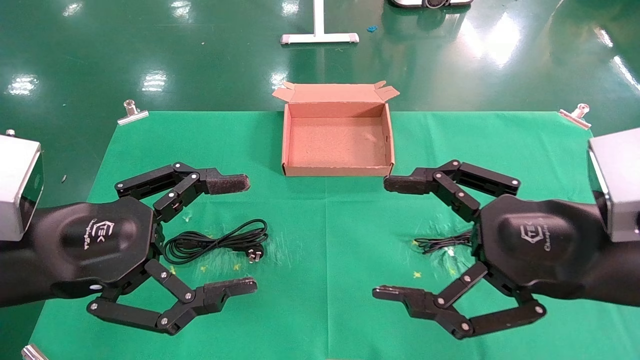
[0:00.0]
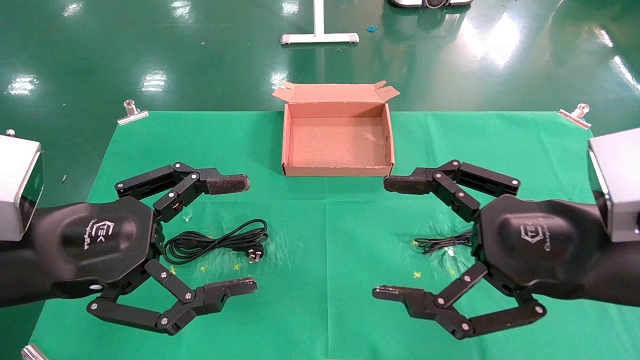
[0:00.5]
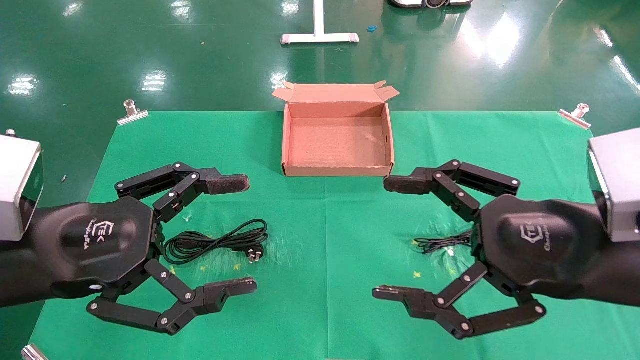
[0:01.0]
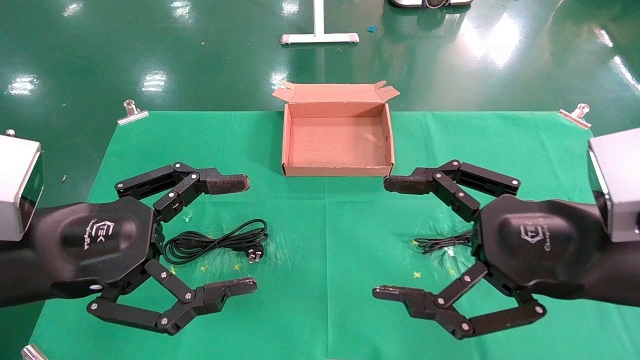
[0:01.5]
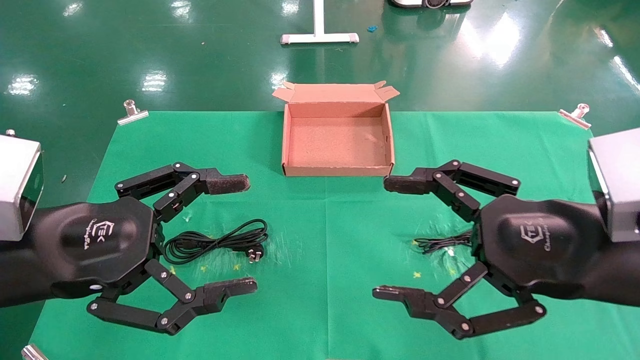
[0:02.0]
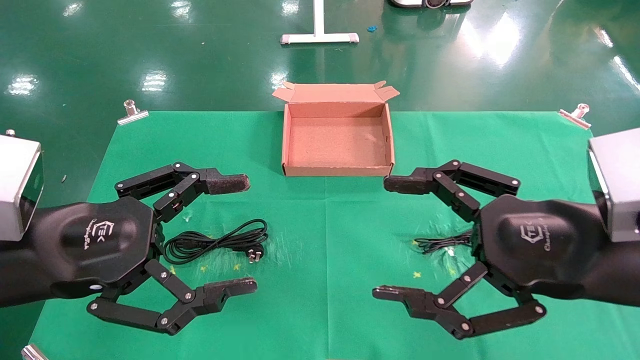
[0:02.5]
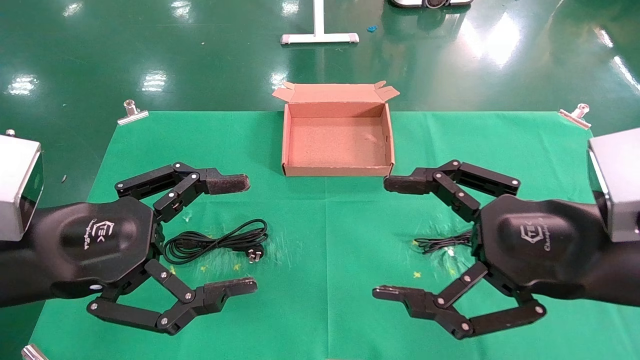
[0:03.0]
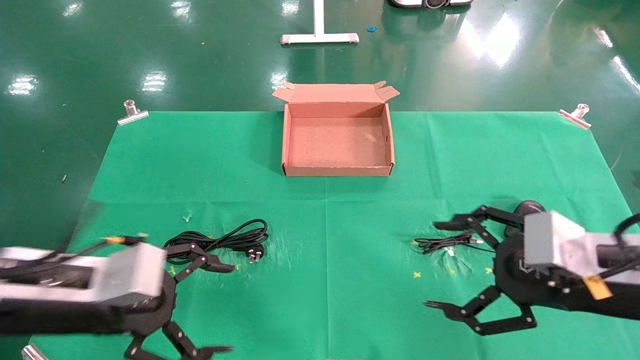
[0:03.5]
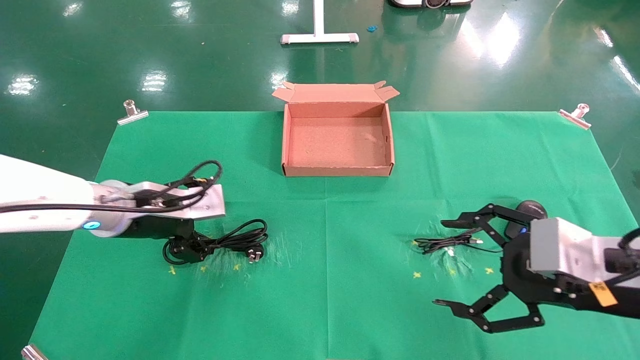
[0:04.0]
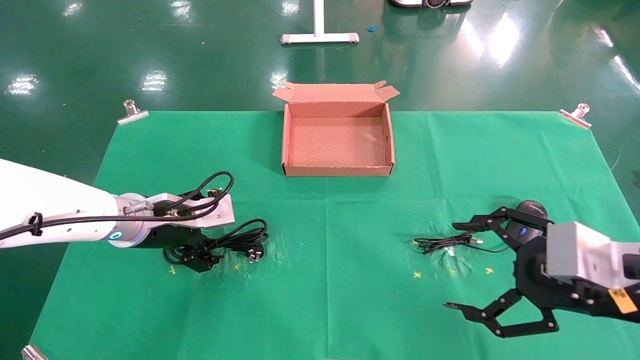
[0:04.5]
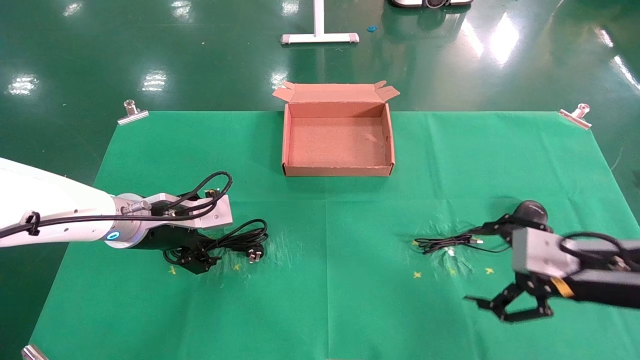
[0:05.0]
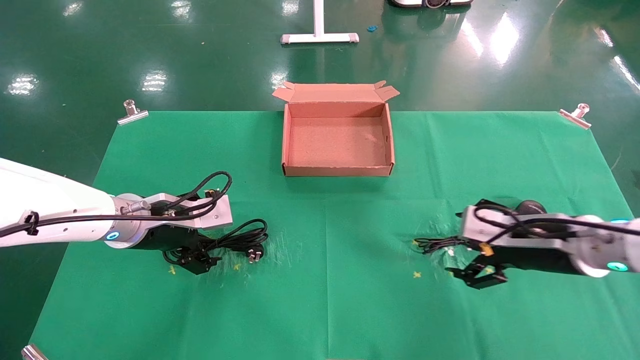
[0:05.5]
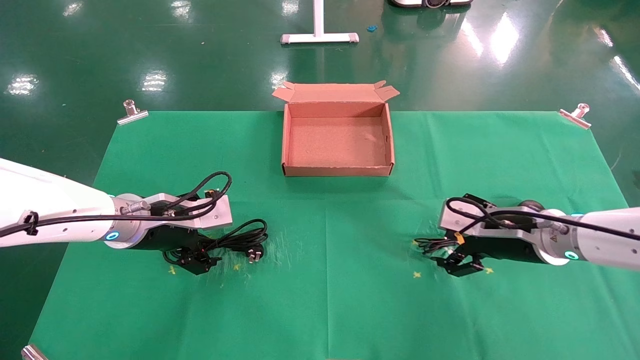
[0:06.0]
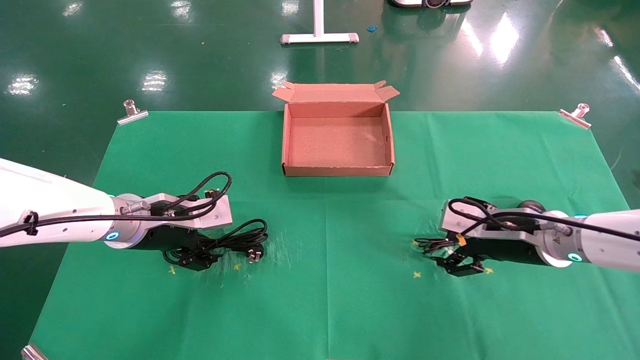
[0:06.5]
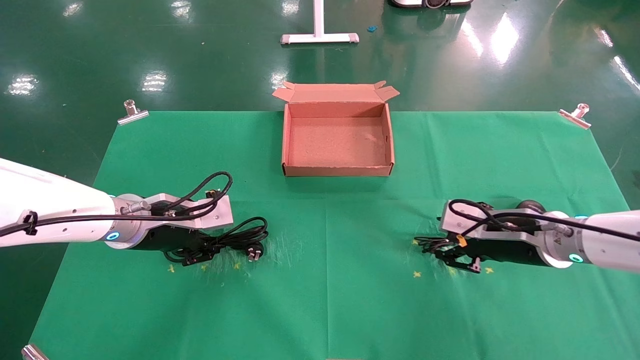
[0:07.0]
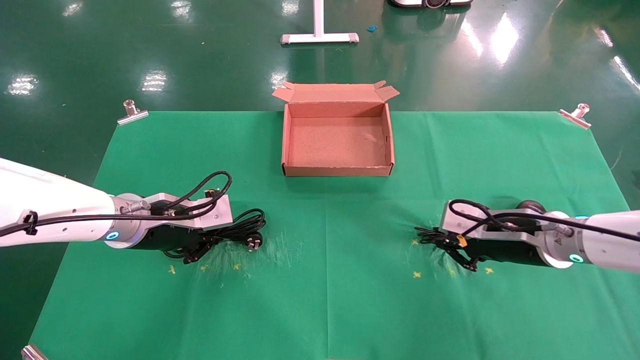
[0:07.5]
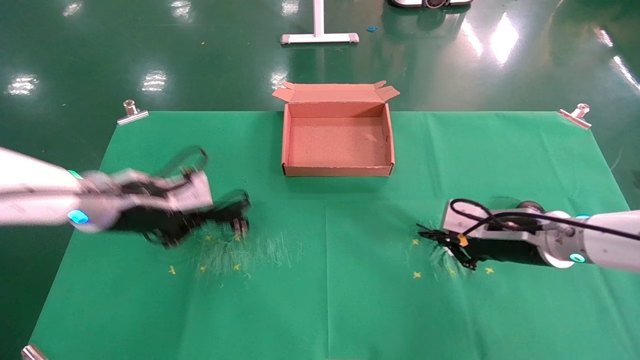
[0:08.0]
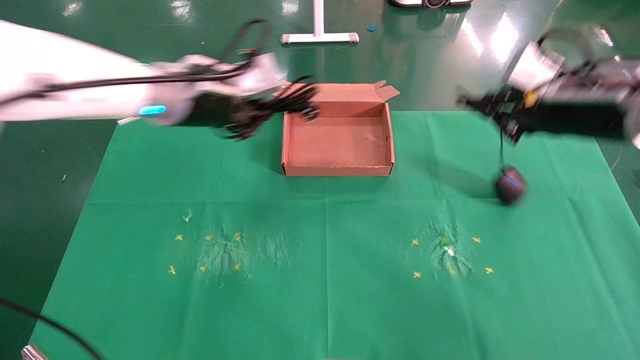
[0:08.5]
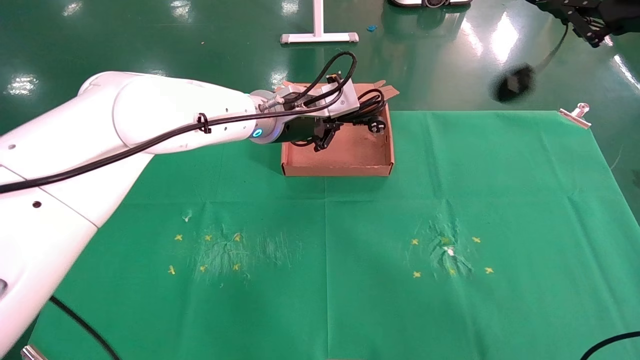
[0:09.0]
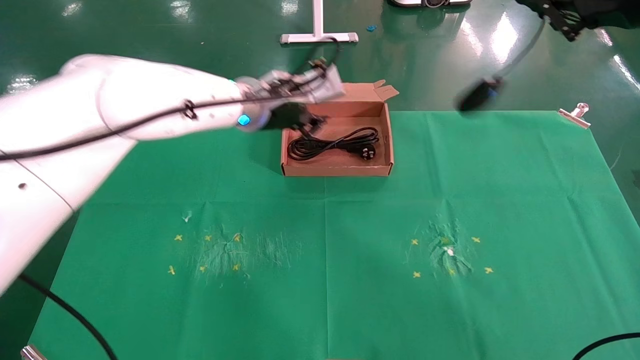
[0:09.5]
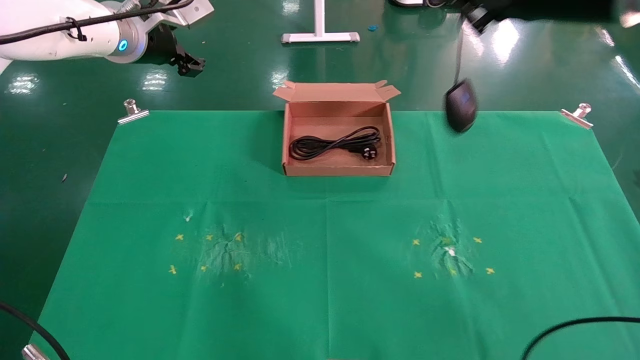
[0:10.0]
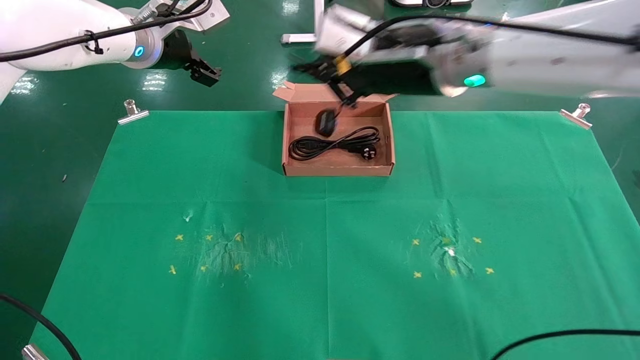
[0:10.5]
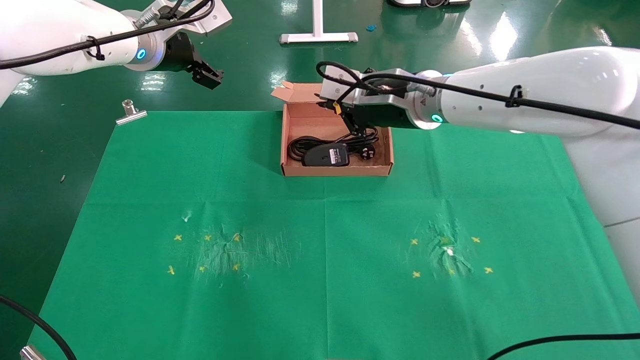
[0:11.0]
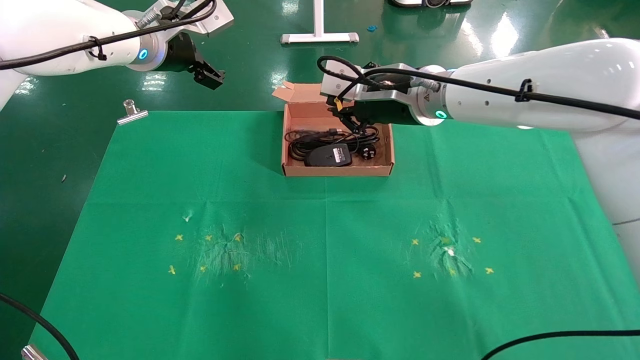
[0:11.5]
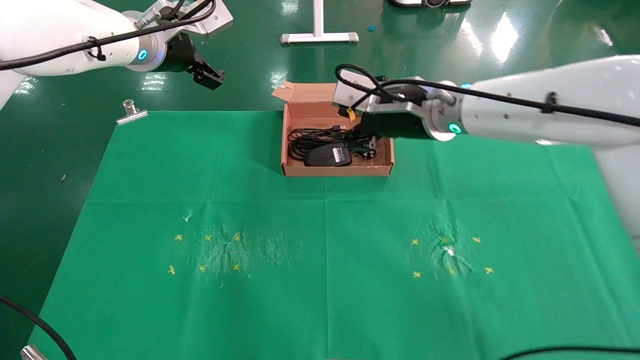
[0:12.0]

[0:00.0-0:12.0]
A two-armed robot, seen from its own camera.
Task of the whole recording: grasp data cable left put into box grasp mouse right put into box.
Step, 0:03.0 to 0:07.5: Simultaneously pick up the mouse and power cord from the accessory packaging area.
Step, 0:08.0 to 0:11.5: Place the mouse and power cord into the box.
0:00.0 to 0:02.0: Neither gripper changes place.
0:02.0 to 0:04.0: The right gripper moves to the right, approximately 5 cm. The left gripper is displaced forward by some 15 cm.
0:04.0 to 0:06.0: The right gripper heads forward, covering some 15 cm.
0:06.0 to 0:08.0: The right gripper closes up. Meanwhile the left gripper travels upward by approximately 5 cm, and closes up.
0:08.0 to 0:10.0: The left gripper travels upward and forward by about 20 cm, moves approximately 20 cm to the right and comes back, and opens its fingers. Meanwhile the right gripper heads upward, covering approximately 25 cm.
0:10.0 to 0:12.0: The right gripper travels downward, to the left and forward by roughly 20 cm, and opens. Meanwhile the left gripper opens its fingers.

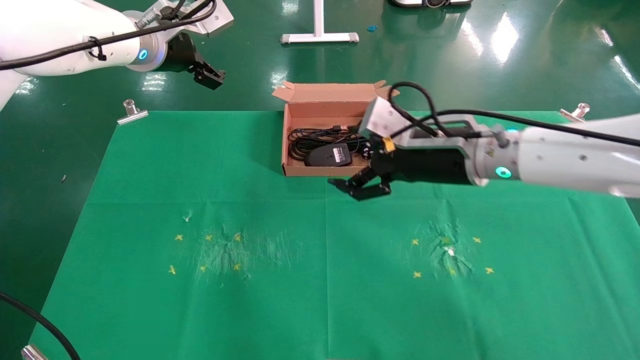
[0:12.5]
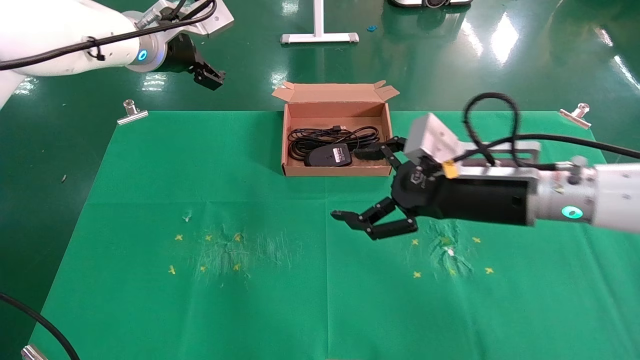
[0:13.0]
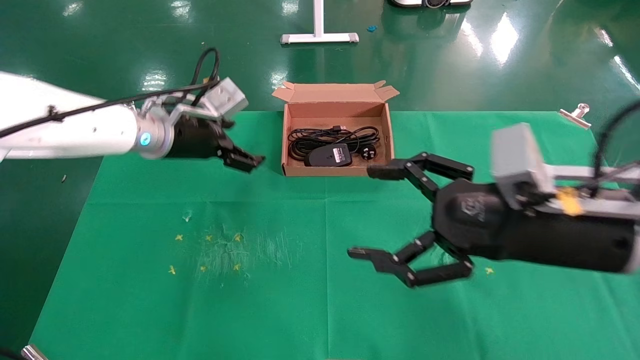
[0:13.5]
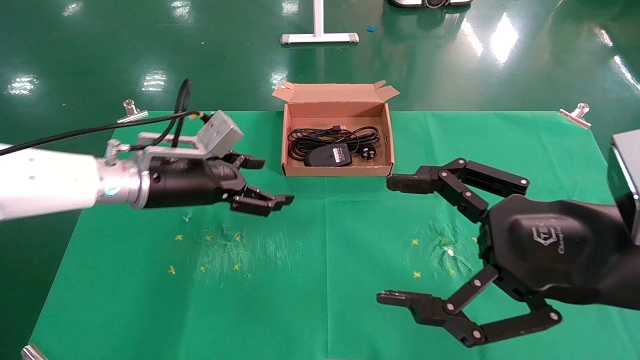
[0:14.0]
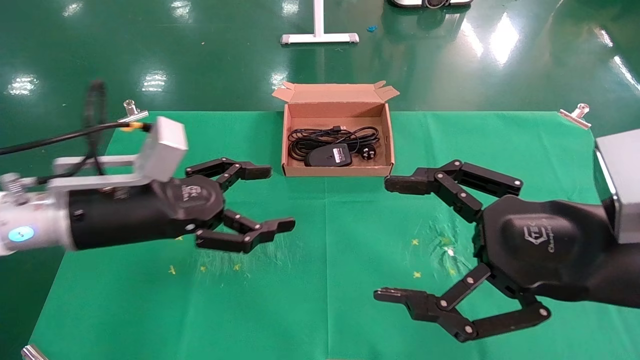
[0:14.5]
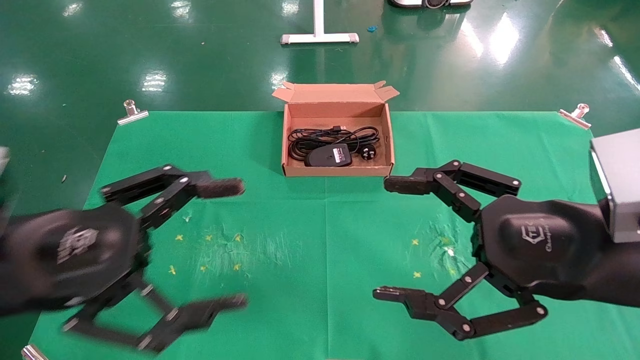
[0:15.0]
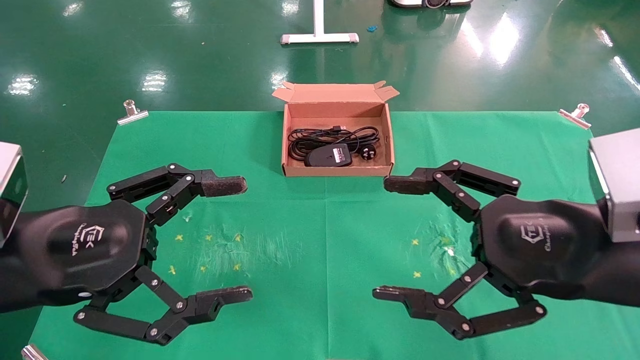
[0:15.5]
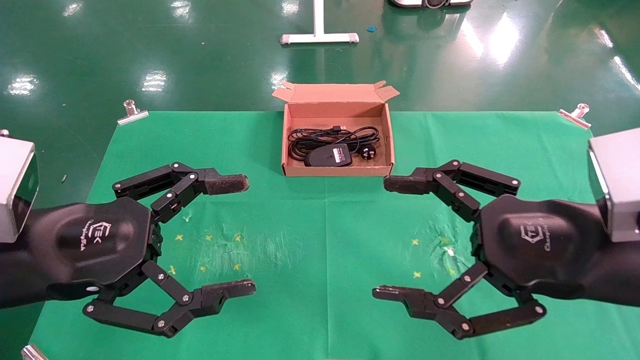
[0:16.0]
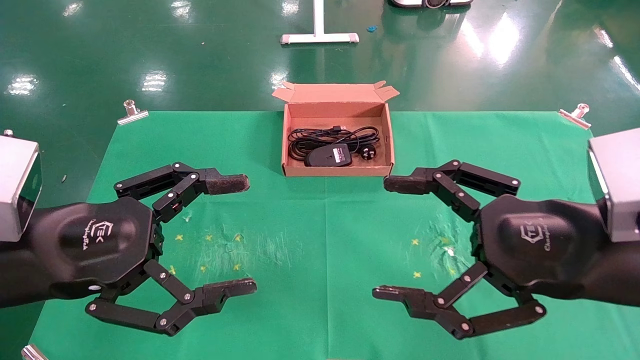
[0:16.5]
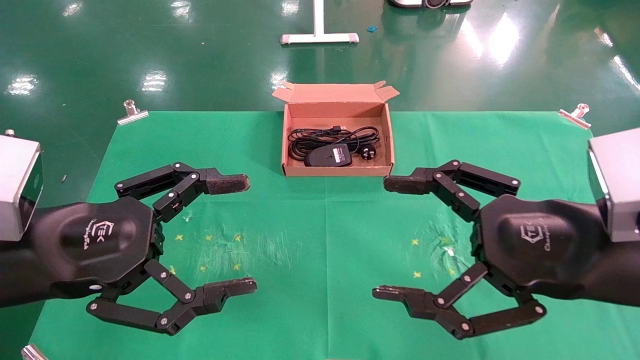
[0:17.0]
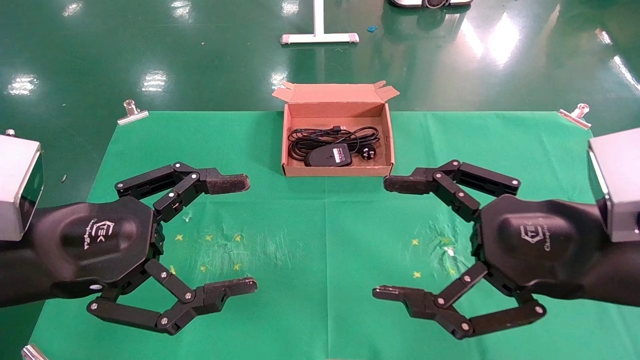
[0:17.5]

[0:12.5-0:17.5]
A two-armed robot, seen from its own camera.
Task of the whole recording: grasp data cable left put into box grasp mouse right put into box.
0:12.5 to 0:15.0: The left gripper travels backward and downward by approximately 30 cm. The right gripper moves backward and to the right, approximately 20 cm.
0:15.0 to 0:17.5: Neither gripper changes place.
